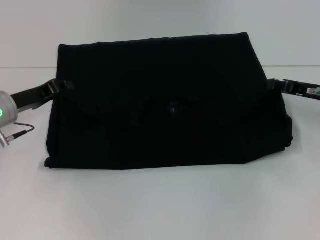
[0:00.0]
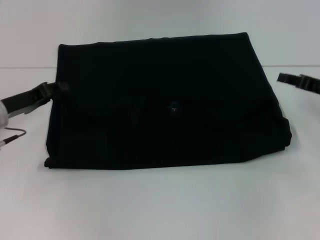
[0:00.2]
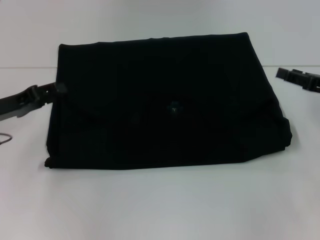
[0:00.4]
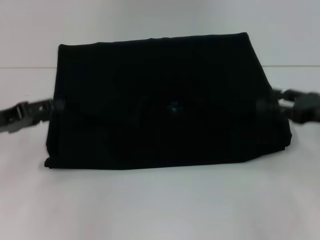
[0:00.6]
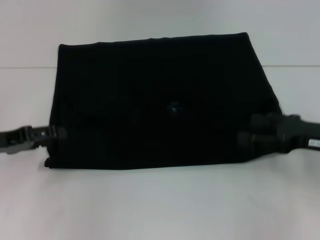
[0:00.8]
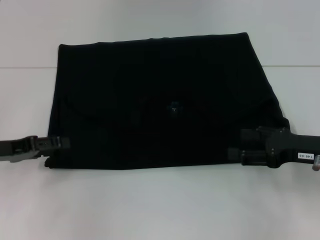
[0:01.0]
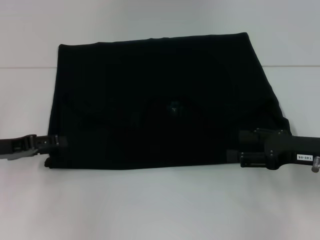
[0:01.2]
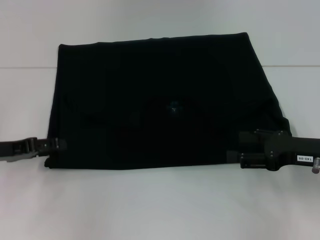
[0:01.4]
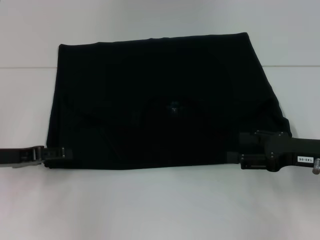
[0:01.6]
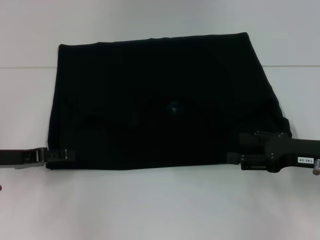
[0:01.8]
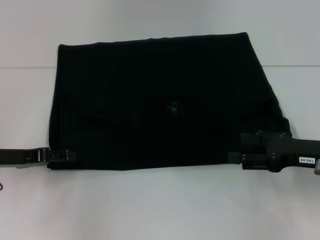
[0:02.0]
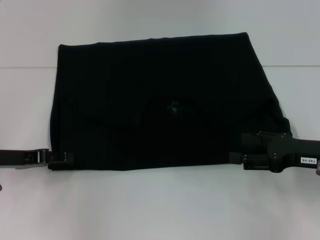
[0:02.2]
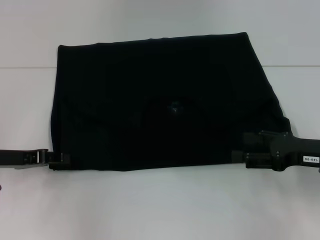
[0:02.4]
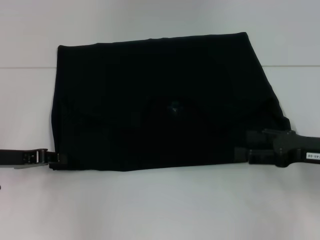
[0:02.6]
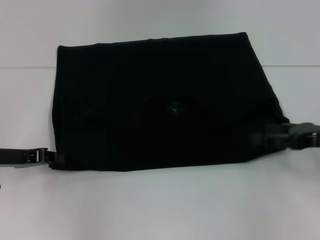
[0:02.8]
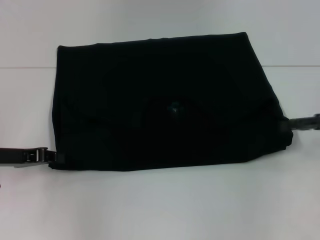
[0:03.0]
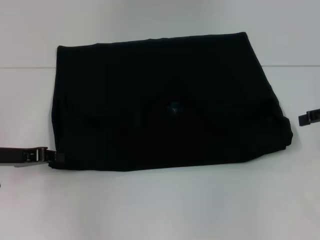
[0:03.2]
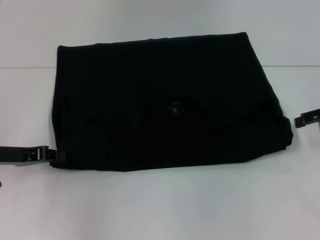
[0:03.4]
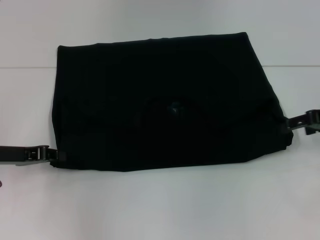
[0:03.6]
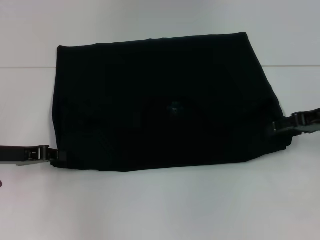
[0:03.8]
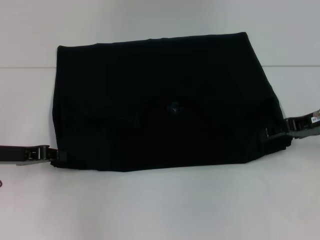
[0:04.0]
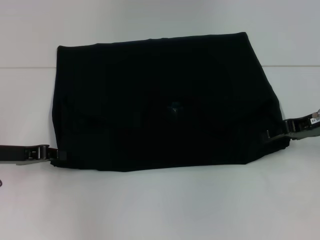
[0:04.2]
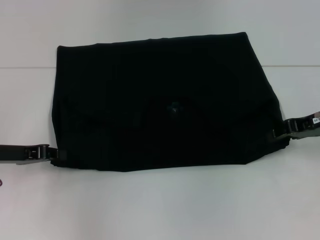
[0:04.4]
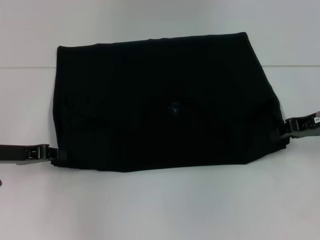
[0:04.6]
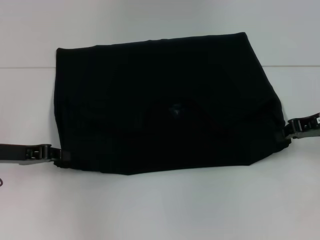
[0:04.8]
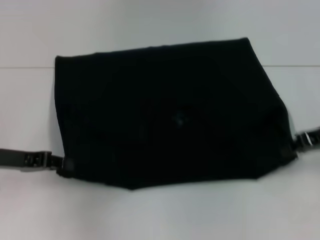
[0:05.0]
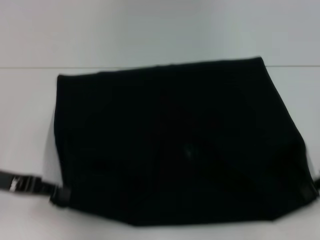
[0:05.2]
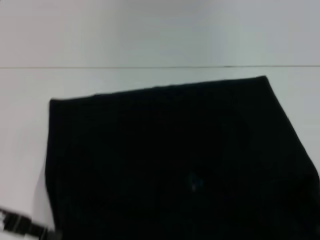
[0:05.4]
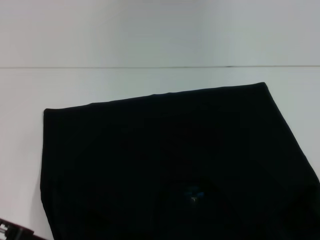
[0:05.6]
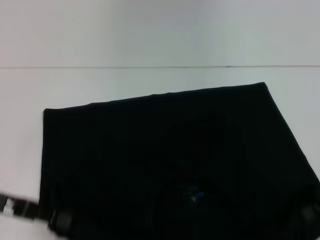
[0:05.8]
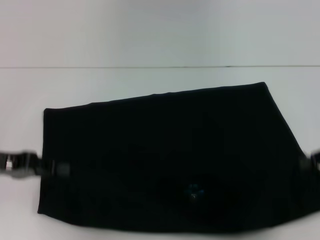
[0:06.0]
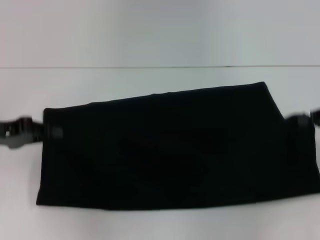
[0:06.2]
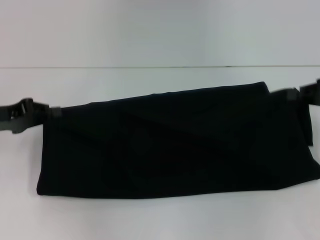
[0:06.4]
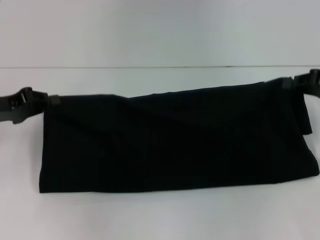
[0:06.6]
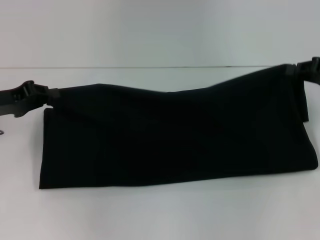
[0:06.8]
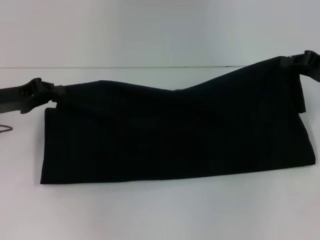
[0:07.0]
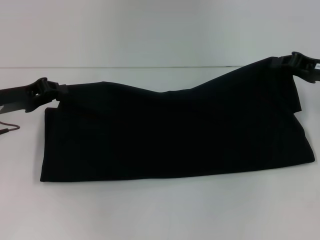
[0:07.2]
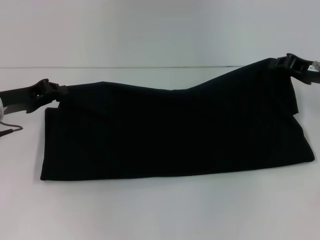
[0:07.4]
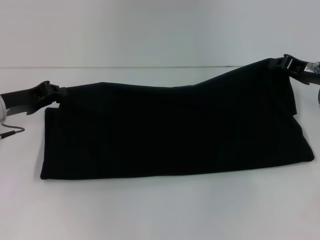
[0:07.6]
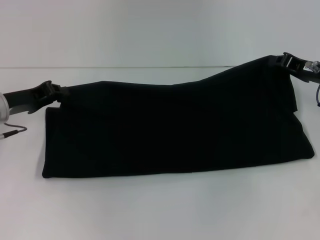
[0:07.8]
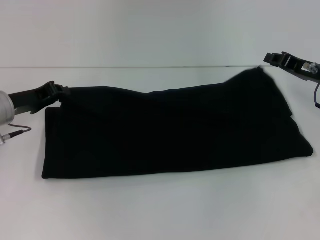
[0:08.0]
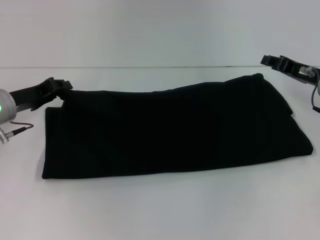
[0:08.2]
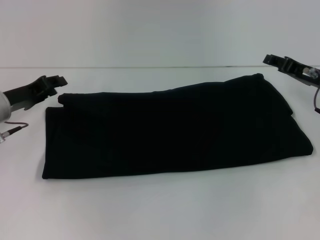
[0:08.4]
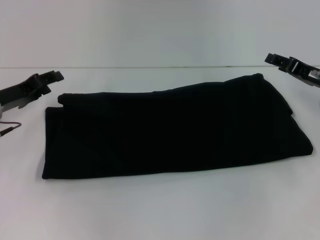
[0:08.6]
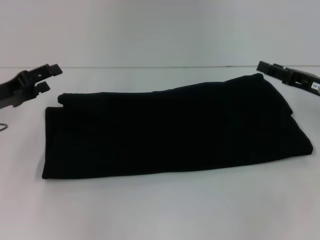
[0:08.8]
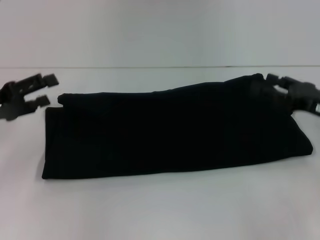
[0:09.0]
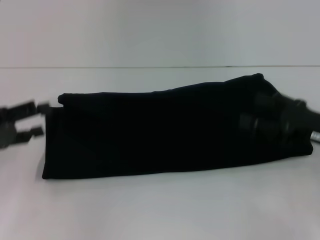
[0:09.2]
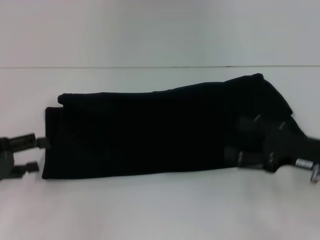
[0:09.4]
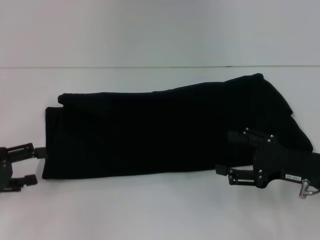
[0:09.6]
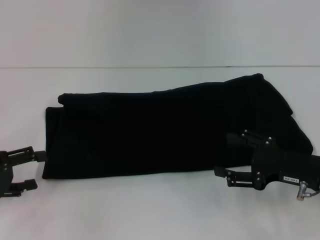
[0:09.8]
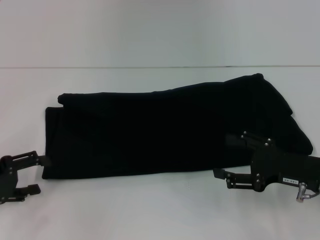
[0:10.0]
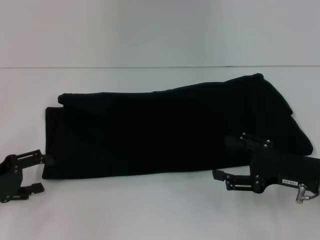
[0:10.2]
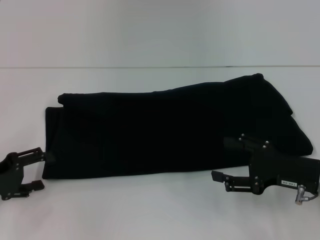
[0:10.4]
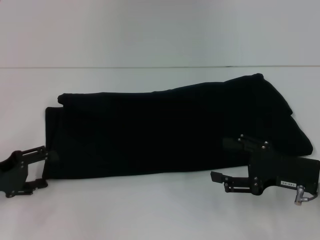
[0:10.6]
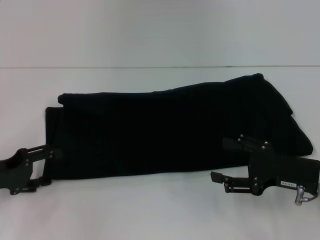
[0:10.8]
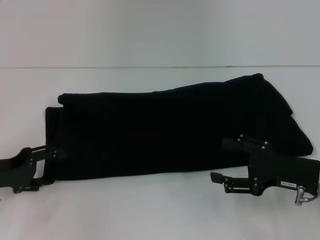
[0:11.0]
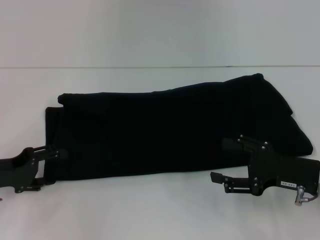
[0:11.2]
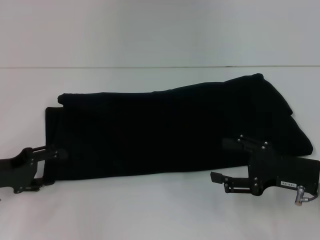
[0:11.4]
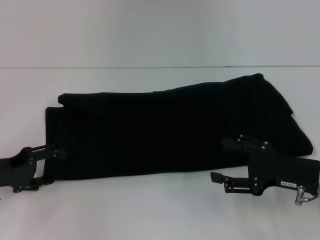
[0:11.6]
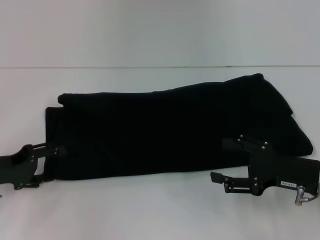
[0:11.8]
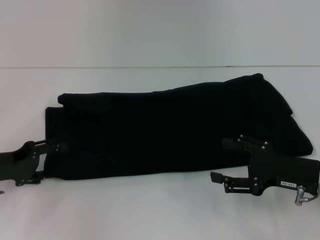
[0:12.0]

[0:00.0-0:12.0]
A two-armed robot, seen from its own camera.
Step, 0:00.8 to 0:05.6: Pull the clothes with your left hand.
Step, 0:00.8 to 0:05.6: Pull the clothes with your right hand.
Step, 0:05.8 to 0:08.6: Fold the clothes with your right hand.
0:00.0 to 0:01.6: Both grippers travel together backward, about 5 cm. The right gripper opens; the left gripper opens.
0:01.6 to 0:03.0: The left gripper closes its fingers. Meanwhile the right gripper is displaced to the right and upward by about 10 cm.
0:03.0 to 0:04.4: The right gripper shifts roughly 5 cm to the left.
0:04.4 to 0:06.0: The right gripper moves backward and to the right, about 10 cm, and closes up. Meanwhile the left gripper ends up approximately 5 cm from where it was.
0:06.0 to 0:07.6: The left gripper goes some 10 cm forward; the right gripper is displaced forward and to the left by about 10 cm.
0:07.6 to 0:09.0: The grippers both shift backward by about 5 cm. The right gripper opens its fingers. Meanwhile the left gripper opens up.
0:09.0 to 0:10.4: The right gripper shifts approximately 5 cm backward, while the left gripper shifts about 5 cm downward.
0:10.4 to 0:12.0: The grippers stay close to where they were, moving slightly.

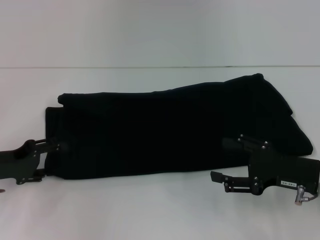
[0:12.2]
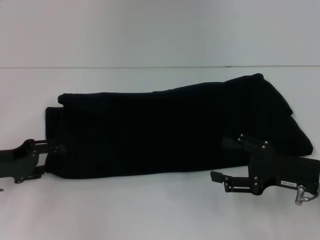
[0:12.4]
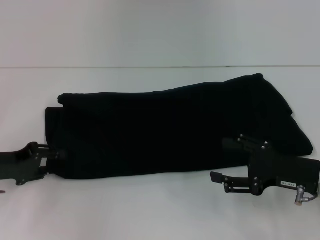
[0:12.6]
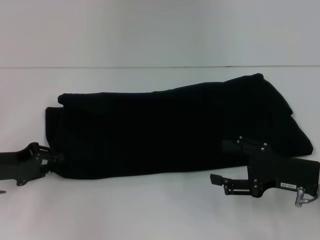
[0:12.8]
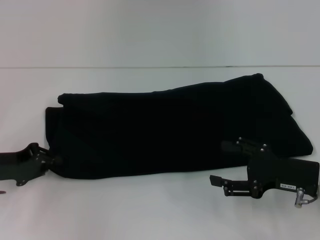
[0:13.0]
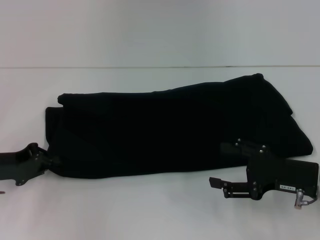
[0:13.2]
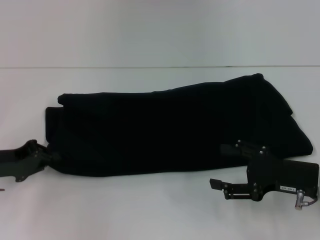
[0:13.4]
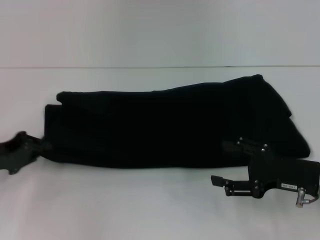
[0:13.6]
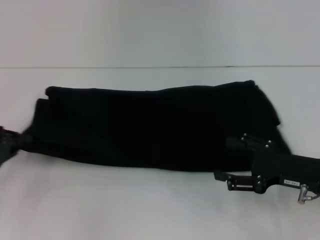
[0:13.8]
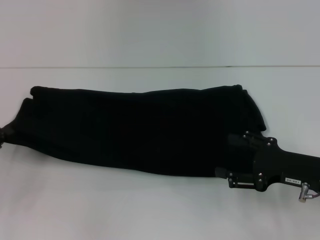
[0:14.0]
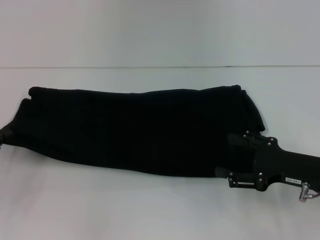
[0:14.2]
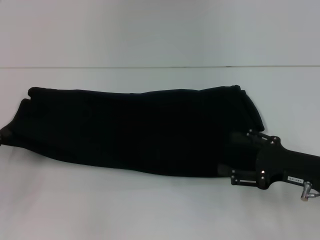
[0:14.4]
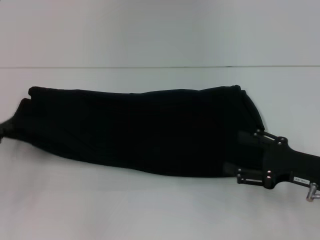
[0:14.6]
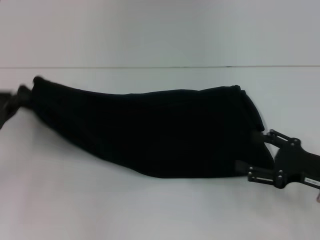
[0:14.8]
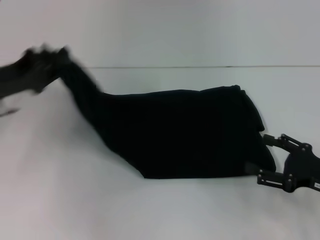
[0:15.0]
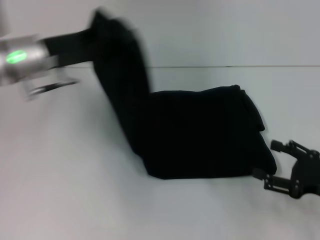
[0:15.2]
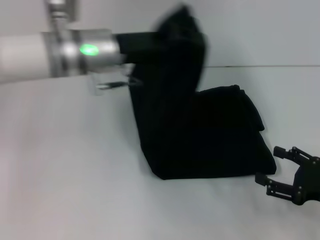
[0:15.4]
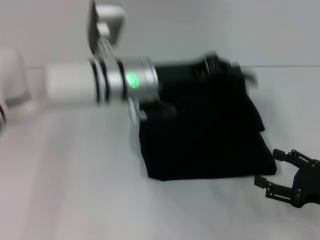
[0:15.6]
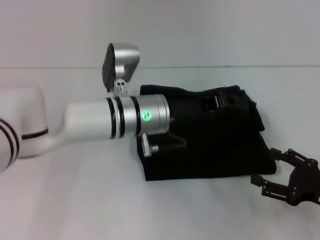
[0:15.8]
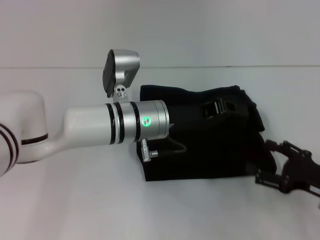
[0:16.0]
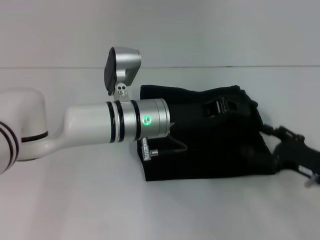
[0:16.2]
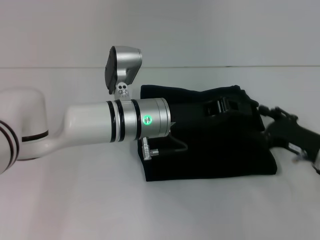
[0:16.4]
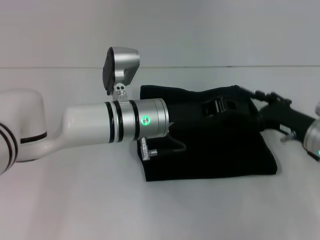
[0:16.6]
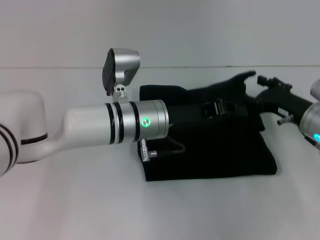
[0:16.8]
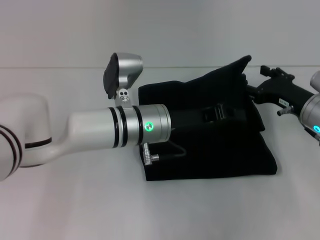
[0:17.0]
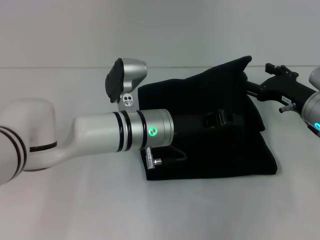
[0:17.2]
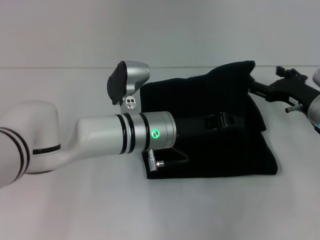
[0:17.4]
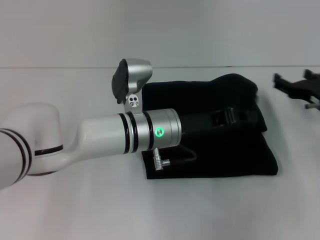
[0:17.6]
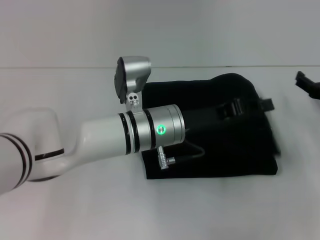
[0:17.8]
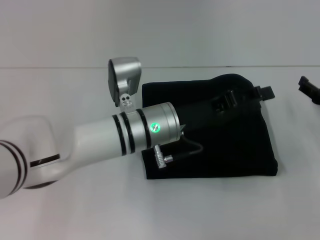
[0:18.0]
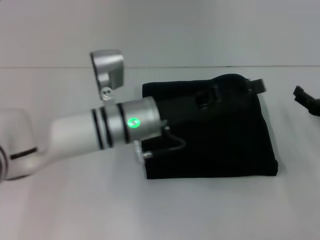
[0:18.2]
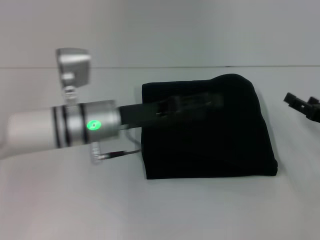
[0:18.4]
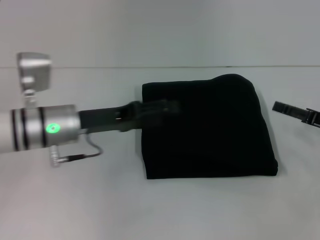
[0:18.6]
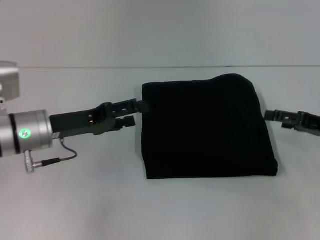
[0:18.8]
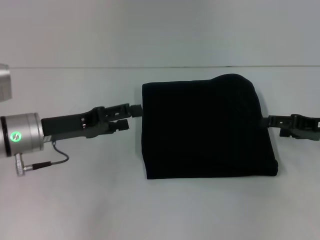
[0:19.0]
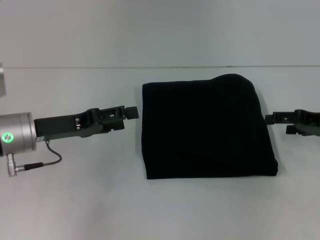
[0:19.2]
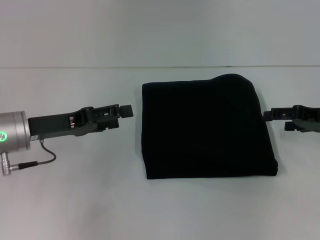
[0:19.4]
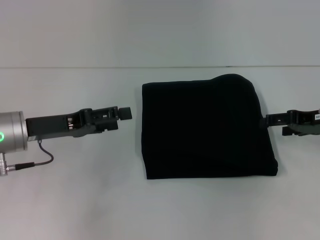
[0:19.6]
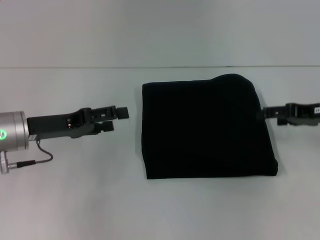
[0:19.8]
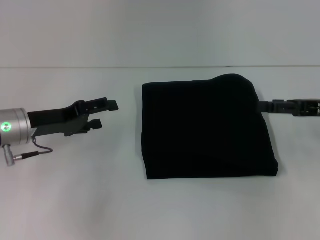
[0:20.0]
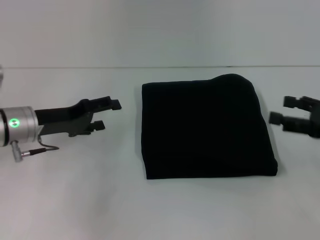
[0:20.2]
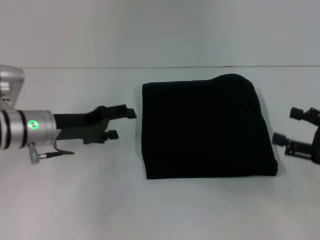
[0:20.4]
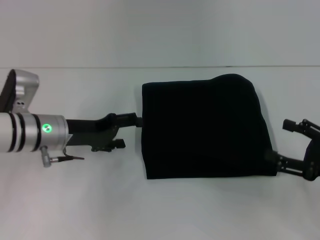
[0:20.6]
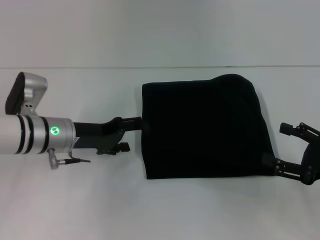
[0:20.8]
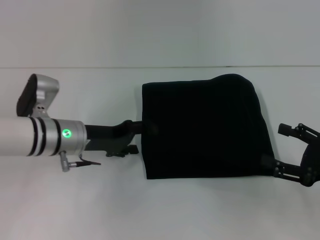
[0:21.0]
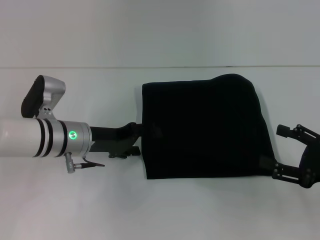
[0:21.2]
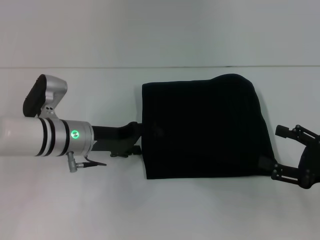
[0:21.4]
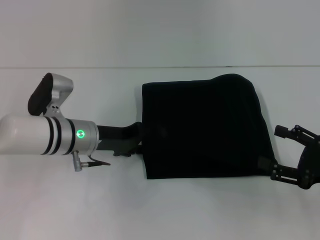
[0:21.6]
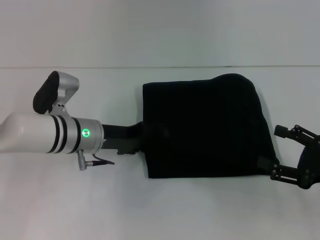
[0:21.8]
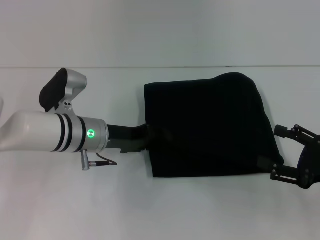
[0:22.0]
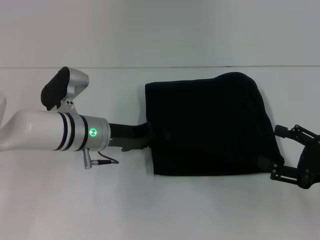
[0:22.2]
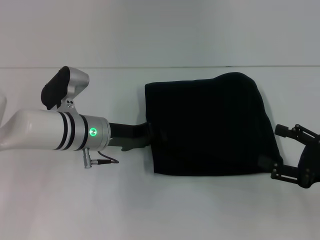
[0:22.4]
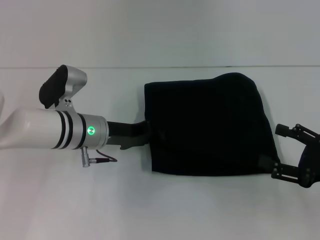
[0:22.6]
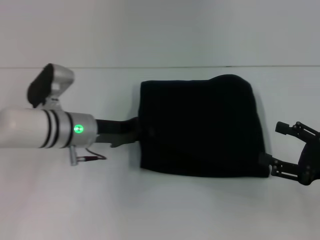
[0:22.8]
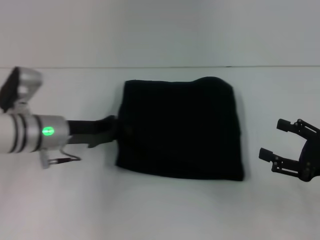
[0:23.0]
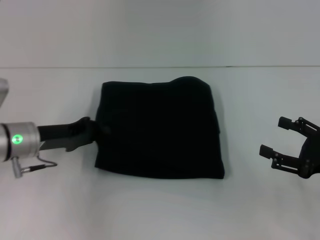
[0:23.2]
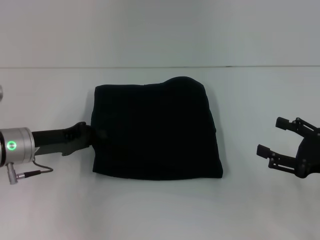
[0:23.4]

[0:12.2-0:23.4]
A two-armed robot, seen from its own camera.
Step, 0:12.2 to 0:18.2: Fold the clothes with your left hand.
0:12.2 to 0:13.8: The left gripper closes up.
0:13.8 to 0:15.4: The left gripper travels to the right, forward and upward by roughly 30 cm, while the right gripper is displaced to the right by about 5 cm.
0:15.4 to 0:17.0: The left gripper is displaced downward and to the right by about 10 cm. The right gripper shifts some 15 cm forward and to the left.
0:17.0 to 0:18.6: The left gripper is displaced to the left by some 10 cm, and opens its fingers; the right gripper travels to the right by about 10 cm.
0:18.6 to 0:20.2: The left gripper goes approximately 5 cm to the left.
0:20.2 to 0:21.8: The right gripper goes roughly 5 cm backward. The left gripper travels to the right by approximately 10 cm.
0:21.8 to 0:23.4: The left gripper moves to the left, about 10 cm, and closes its fingers.
